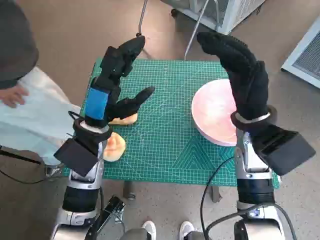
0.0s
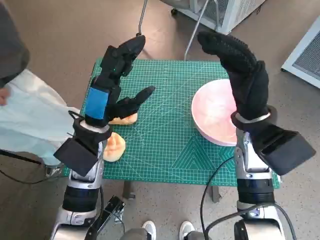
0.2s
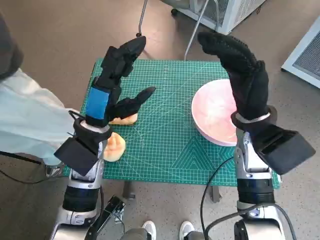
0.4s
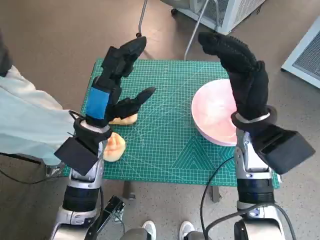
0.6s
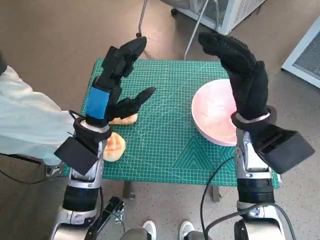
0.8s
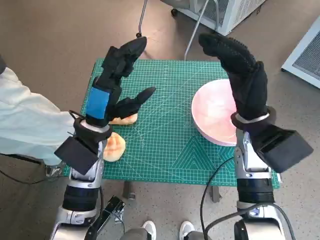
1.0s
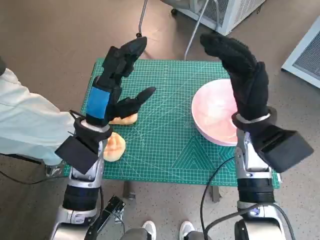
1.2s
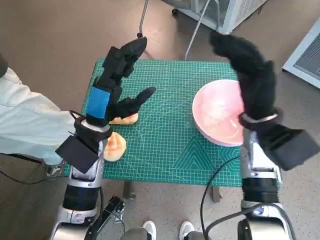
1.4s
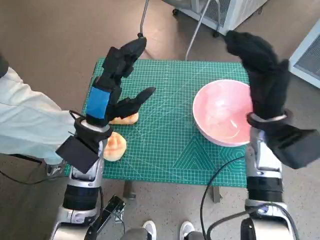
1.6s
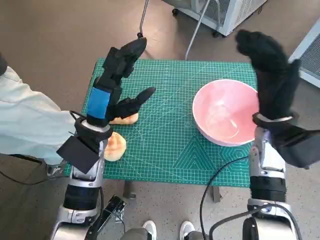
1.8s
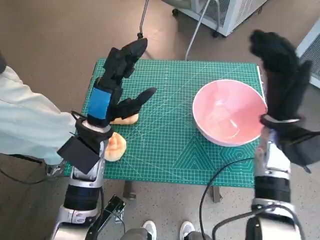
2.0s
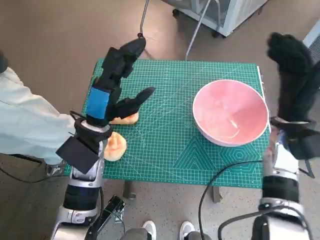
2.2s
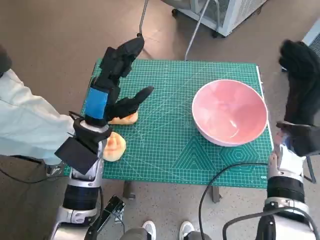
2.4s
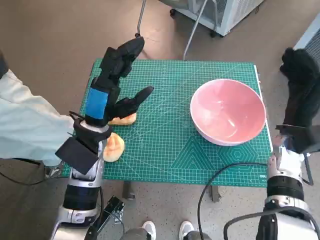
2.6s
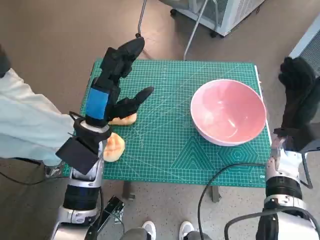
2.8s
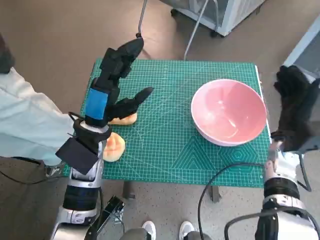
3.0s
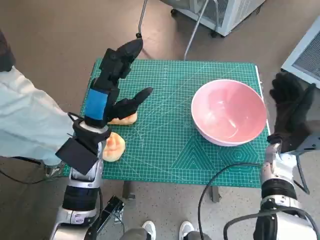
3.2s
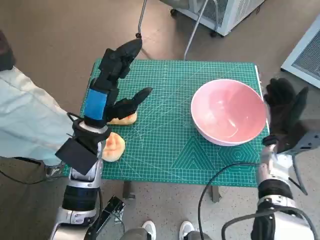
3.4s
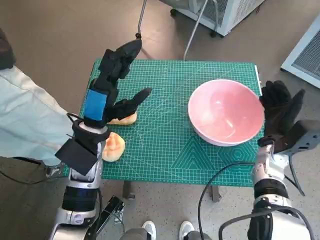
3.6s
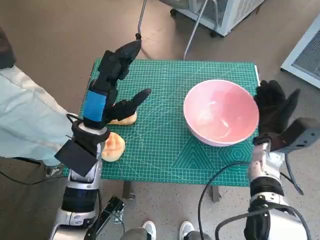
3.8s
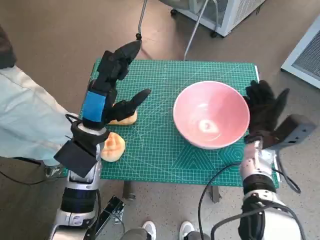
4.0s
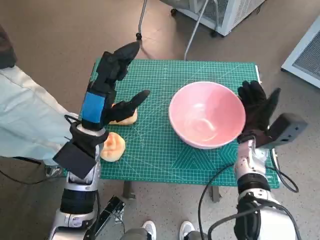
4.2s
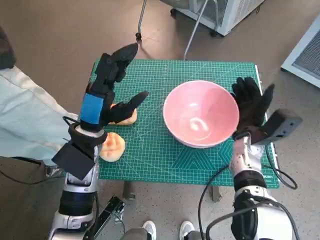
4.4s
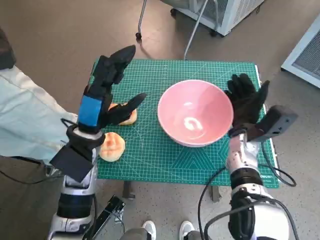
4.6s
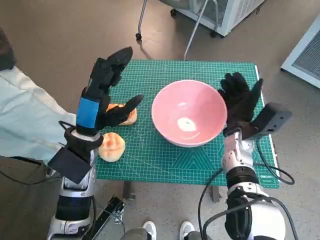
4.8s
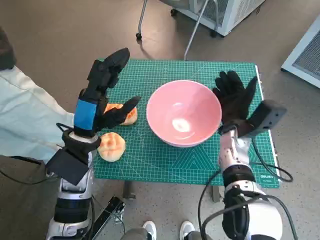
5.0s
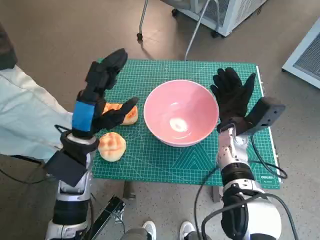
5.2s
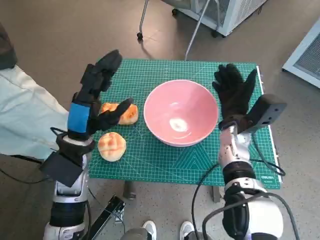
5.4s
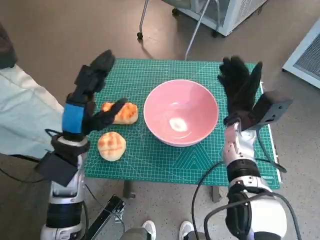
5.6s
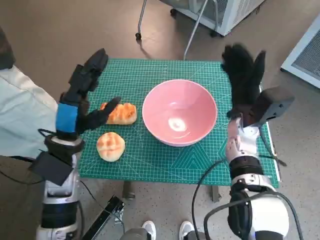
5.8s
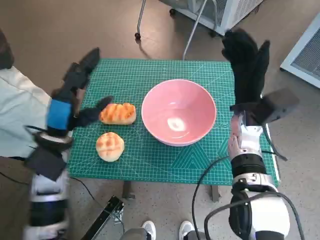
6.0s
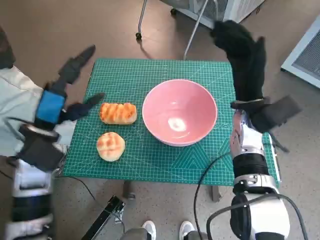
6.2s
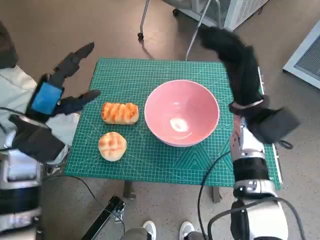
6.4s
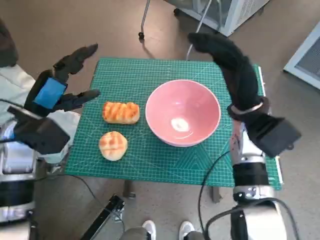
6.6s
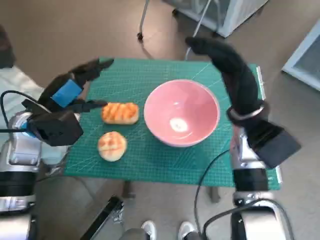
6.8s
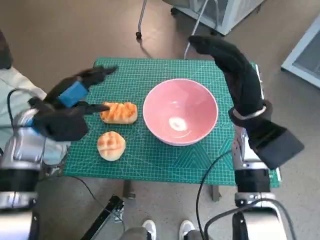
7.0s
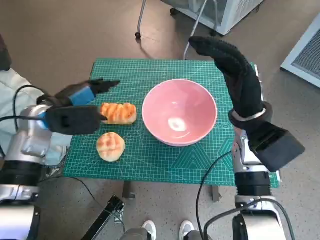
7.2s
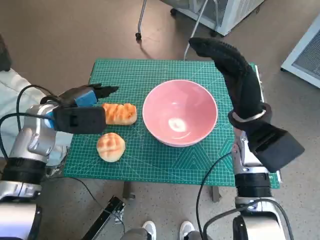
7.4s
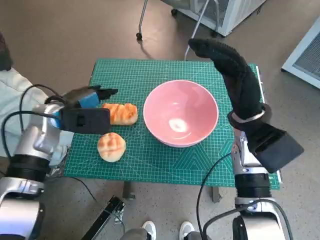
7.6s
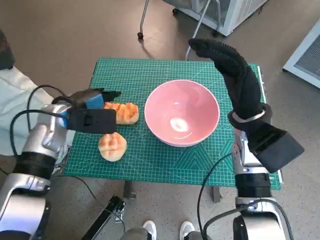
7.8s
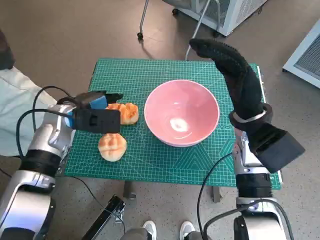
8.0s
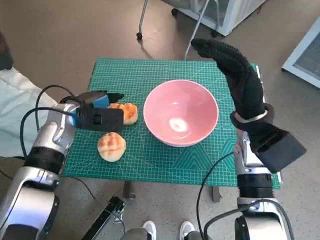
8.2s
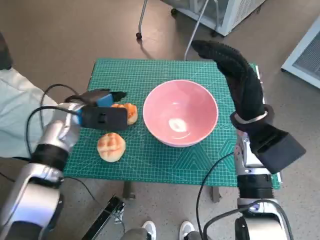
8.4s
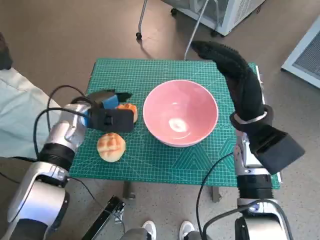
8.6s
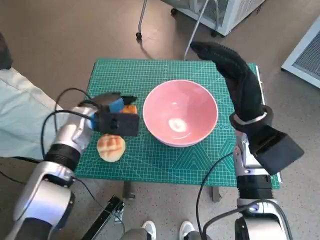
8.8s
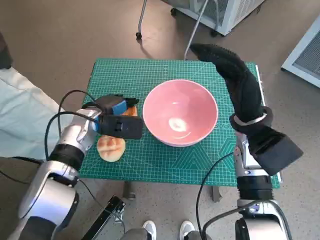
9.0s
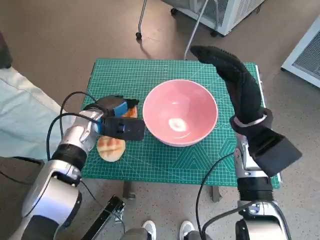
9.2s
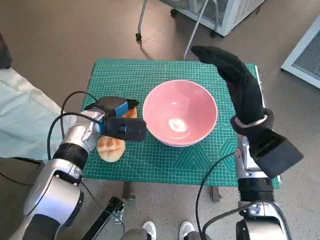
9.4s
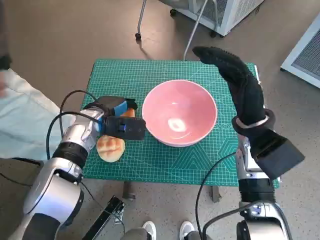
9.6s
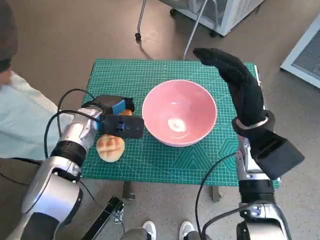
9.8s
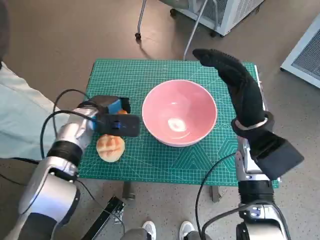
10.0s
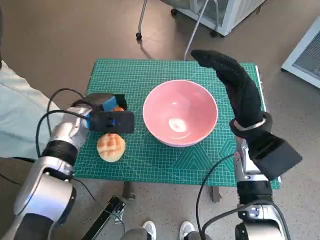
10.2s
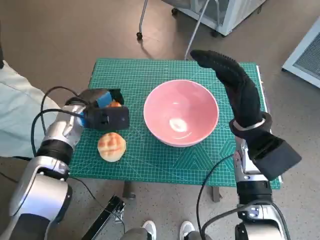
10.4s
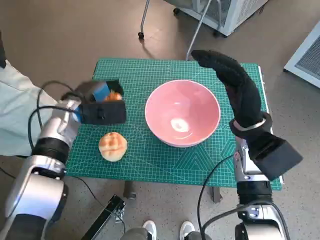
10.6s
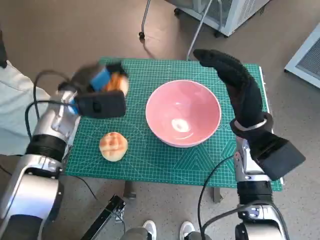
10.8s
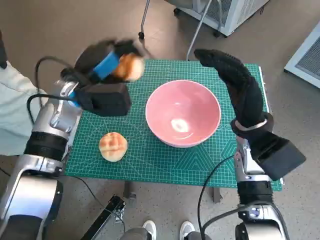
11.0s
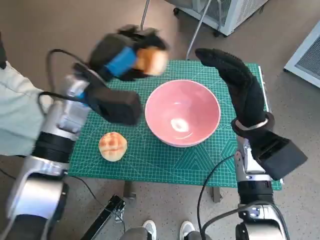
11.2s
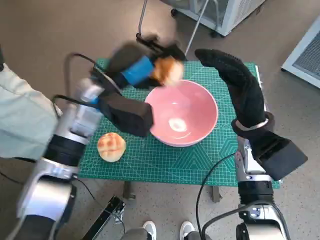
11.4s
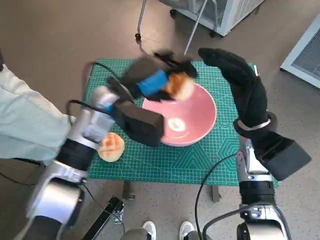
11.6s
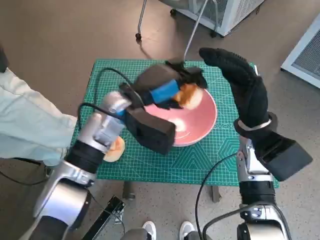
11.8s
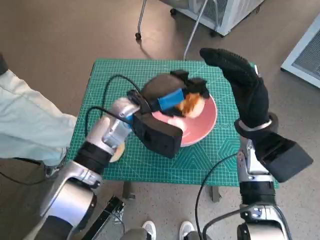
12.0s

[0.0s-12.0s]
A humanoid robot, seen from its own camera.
Task of the whole recording: Push the bowl to the center of the table and put the bread into the bowl.
Step, 0.0s to 5.4s: Move the pink bowl to the center of table with right hand.
Step, 5.6s to 9.6s: Grasp the long bread with left hand.
1.6s to 3.0s: The right hand shifts some 10 cm downward and to the right.
3.0s to 4.4s: The right hand shifts about 5 cm to the left.
4.4s to 6.0s: The left hand is displaced to the left by some 5 cm, while the right hand shifts about 5 cm upward.
6.0s to 7.6s: The right hand moves roughly 5 cm. The left hand travels forward by roughly 5 cm.
7.6s to 9.0s: The left hand goes about 5 cm to the right and downward.
9.0s to 10.4s: The hands make only small movements.
10.4s to 12.0s: The left hand is displaced to the right and upward by about 15 cm.

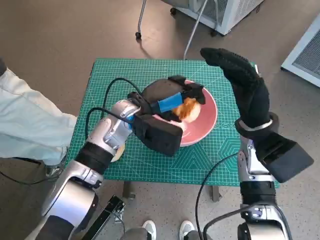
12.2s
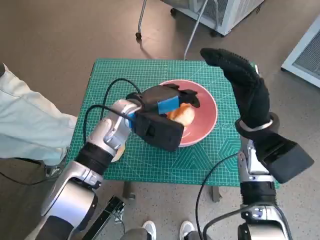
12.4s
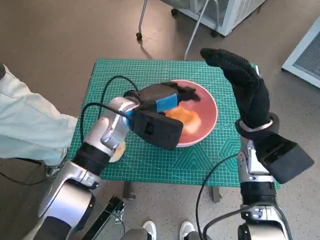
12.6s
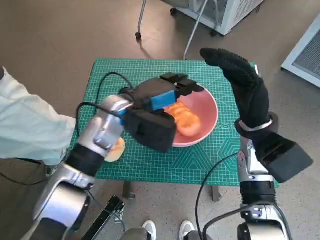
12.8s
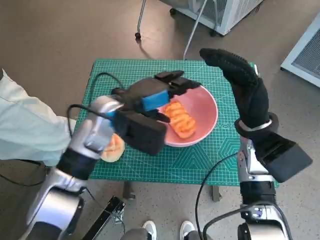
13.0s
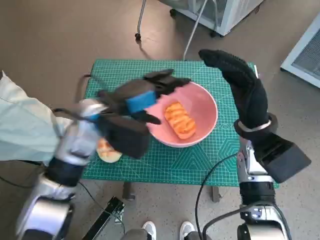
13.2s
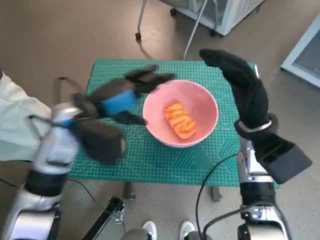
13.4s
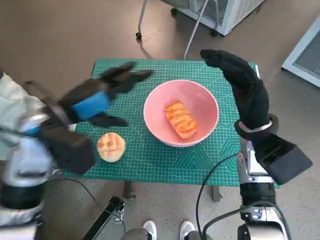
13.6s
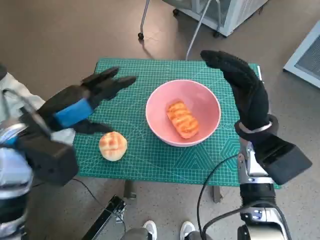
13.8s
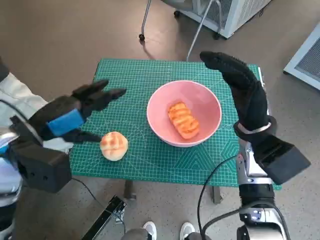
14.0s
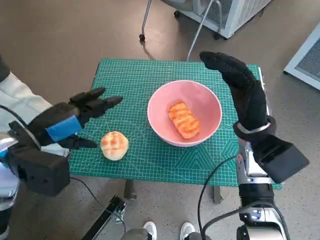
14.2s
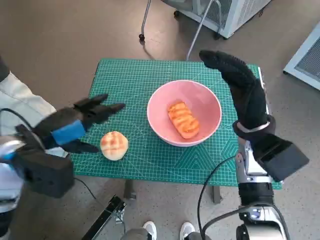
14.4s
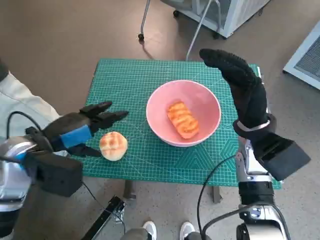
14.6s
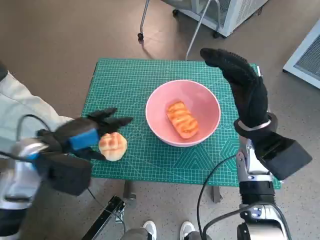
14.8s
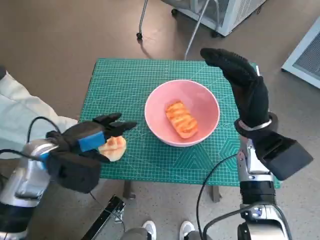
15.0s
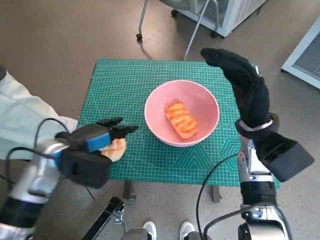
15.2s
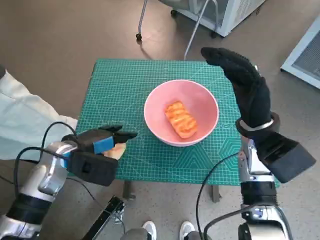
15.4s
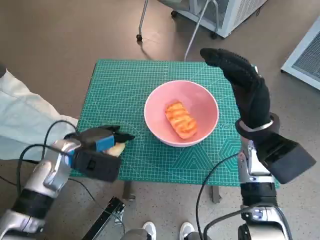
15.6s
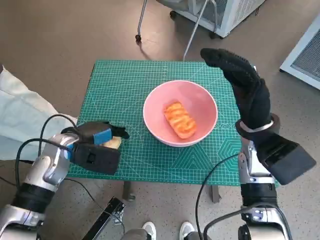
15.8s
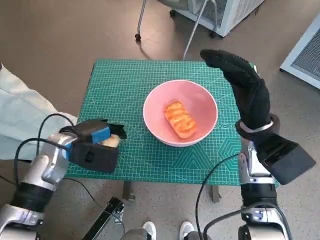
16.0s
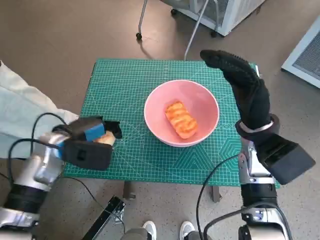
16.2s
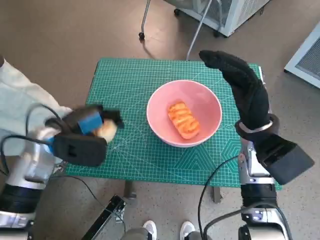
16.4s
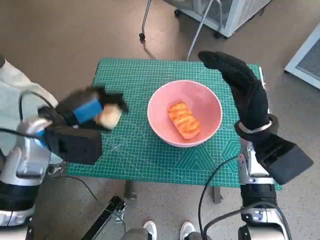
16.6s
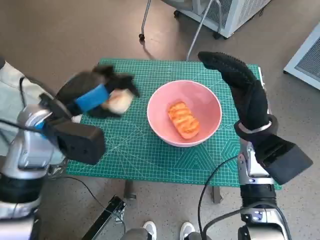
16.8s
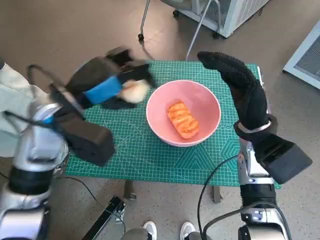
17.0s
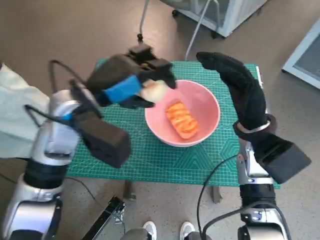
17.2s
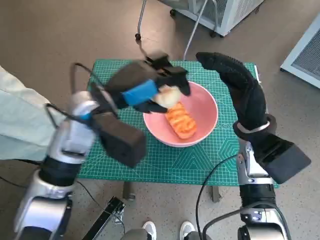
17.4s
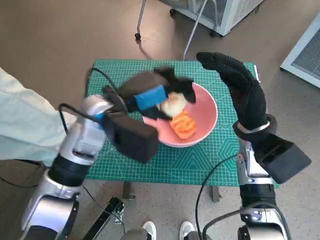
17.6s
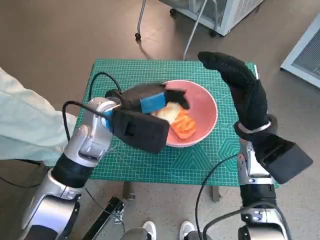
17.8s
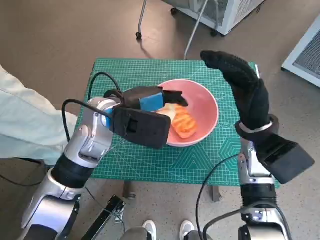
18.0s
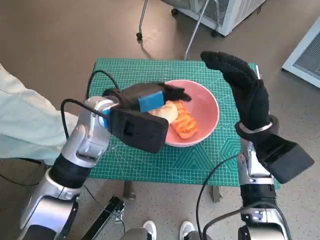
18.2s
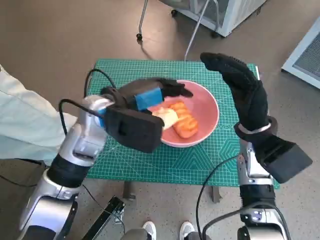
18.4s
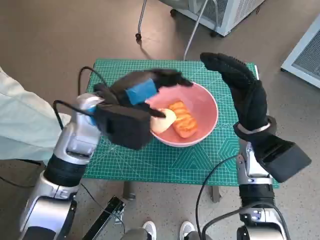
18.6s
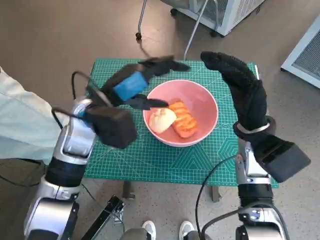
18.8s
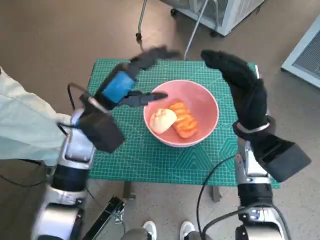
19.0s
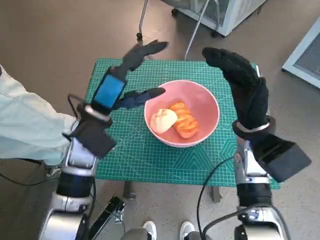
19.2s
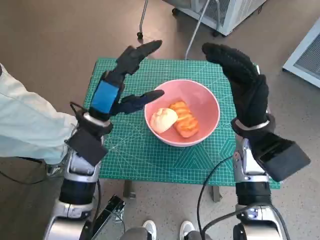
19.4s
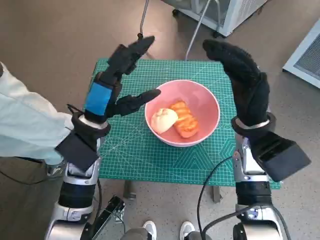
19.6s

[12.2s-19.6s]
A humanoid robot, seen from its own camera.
Task of the whole recording: Push the bowl to the center of the table and put the bread into the bowl.
Step, 13.0s to 15.8s: Grasp the round bread with left hand.
Step, 16.0s to 18.4s: Place the round bread in pink bowl with left hand.
12.2s to 13.6s: The left hand goes some 15 cm to the left, backward and upward.
13.6s to 15.2s: The left hand goes about 10 cm downward.
16.6s to 18.2s: The left hand heads to the right, covering some 10 cm.
18.2s to 19.6s: The left hand changes place by some 5 cm.

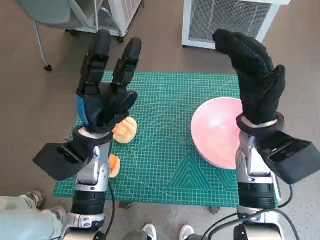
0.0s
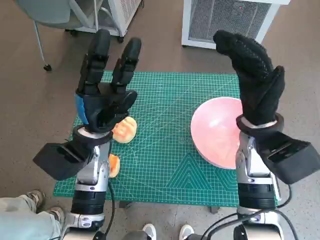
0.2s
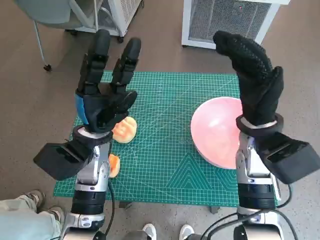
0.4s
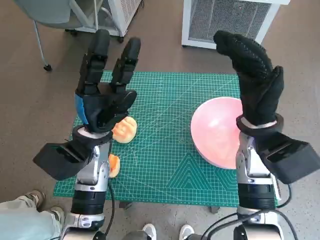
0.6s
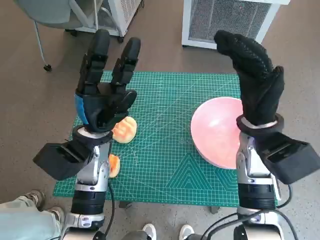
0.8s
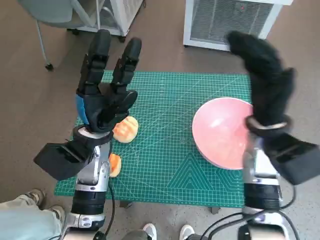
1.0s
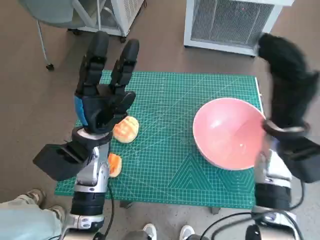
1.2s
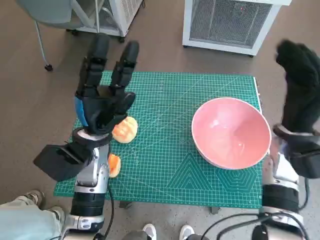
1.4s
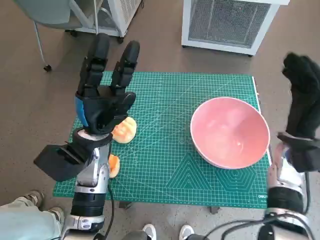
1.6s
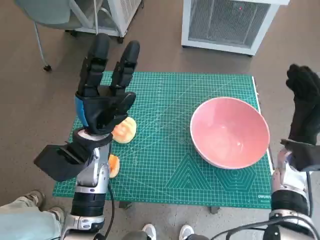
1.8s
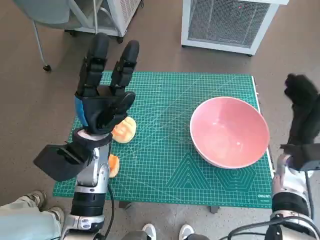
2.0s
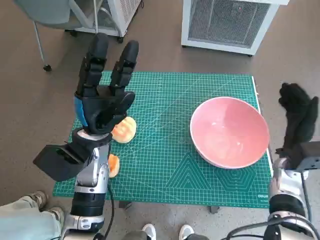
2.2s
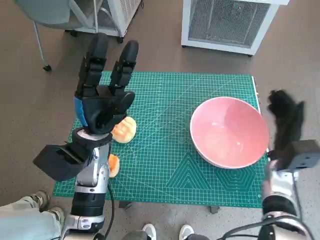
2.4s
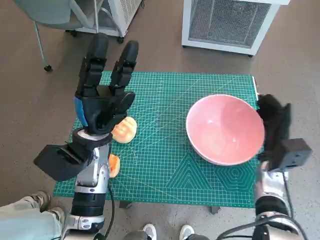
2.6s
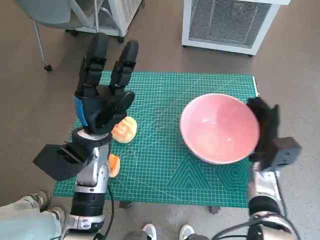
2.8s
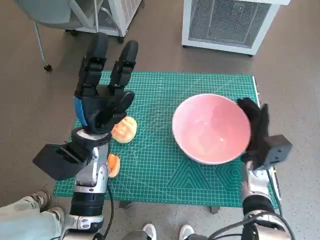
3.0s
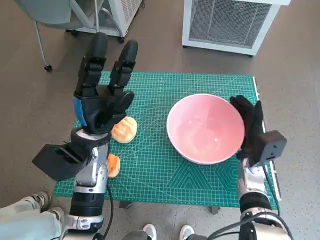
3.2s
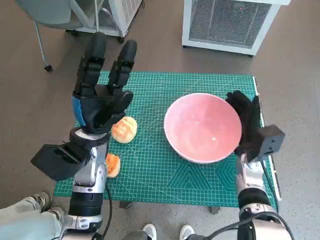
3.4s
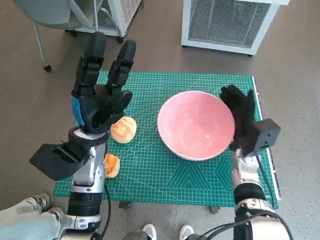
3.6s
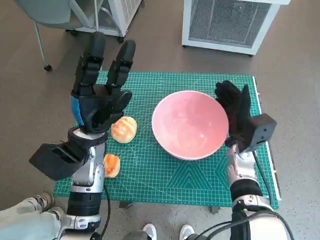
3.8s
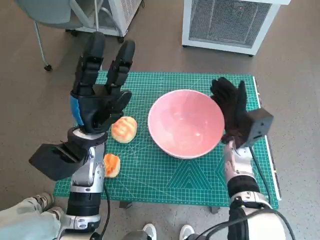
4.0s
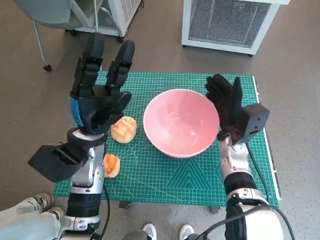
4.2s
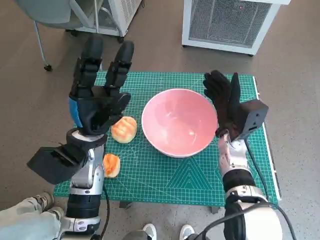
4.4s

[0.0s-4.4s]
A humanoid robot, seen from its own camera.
Task of the whole recording: Push the bowl to the center of the table and put the bread into the bowl.
1.4s to 3.0s: The right hand travels downward by roughly 10 cm.
3.0s to 4.4s: The right hand travels to the left by approximately 5 cm.
